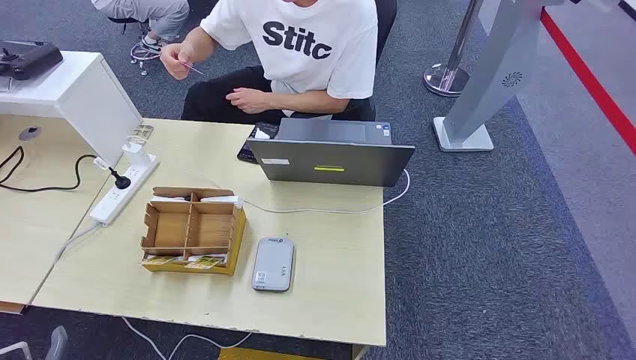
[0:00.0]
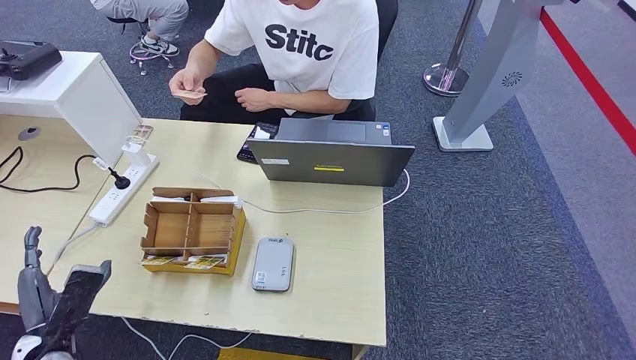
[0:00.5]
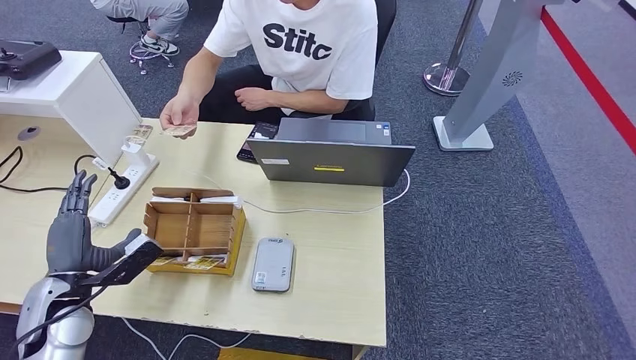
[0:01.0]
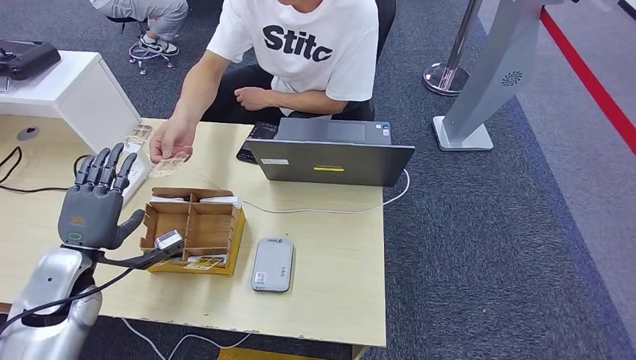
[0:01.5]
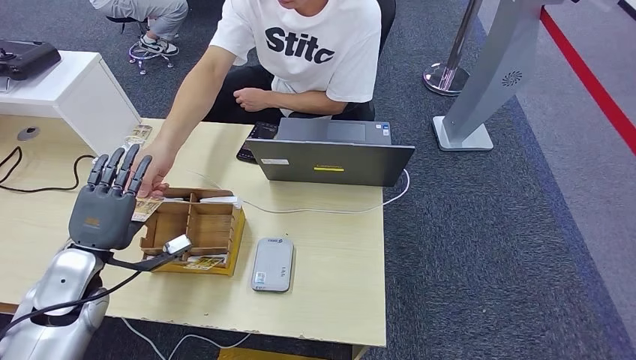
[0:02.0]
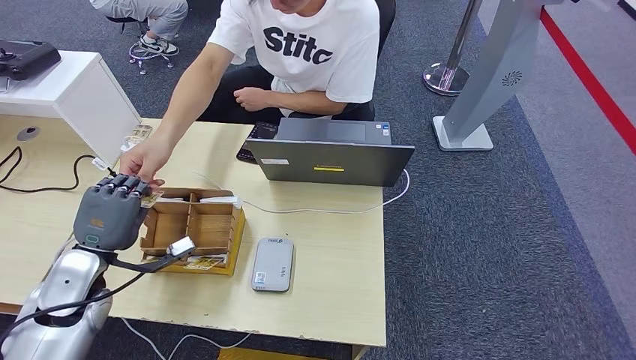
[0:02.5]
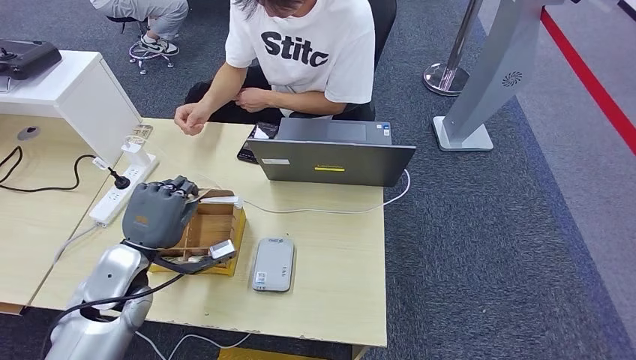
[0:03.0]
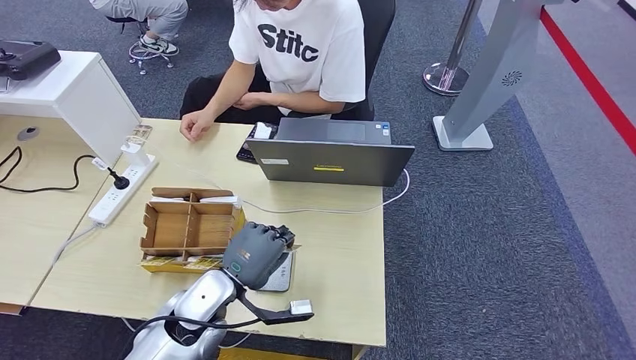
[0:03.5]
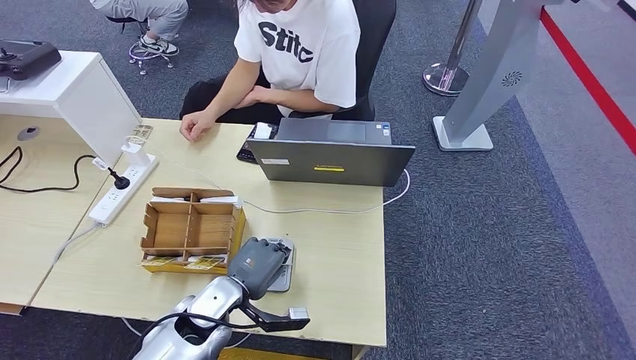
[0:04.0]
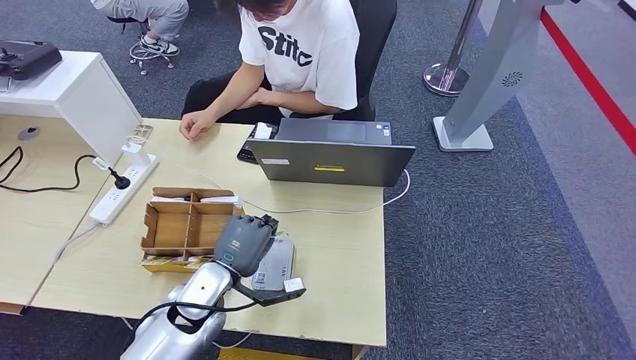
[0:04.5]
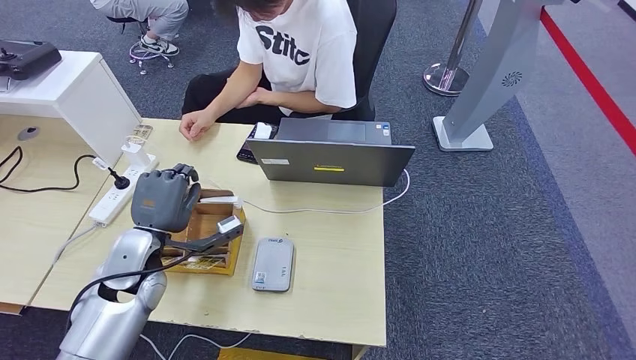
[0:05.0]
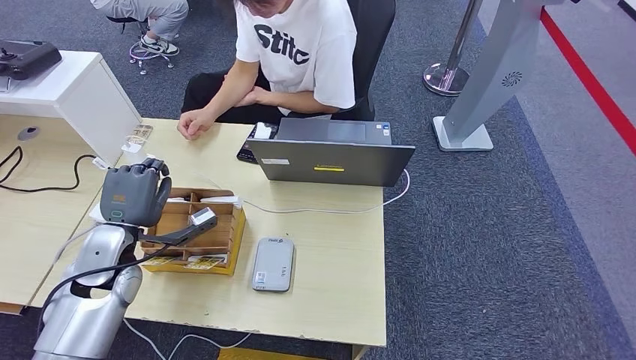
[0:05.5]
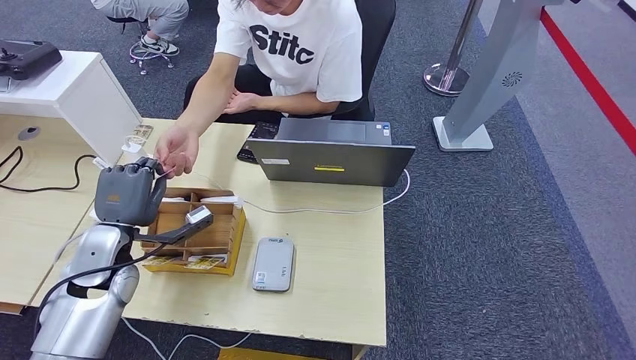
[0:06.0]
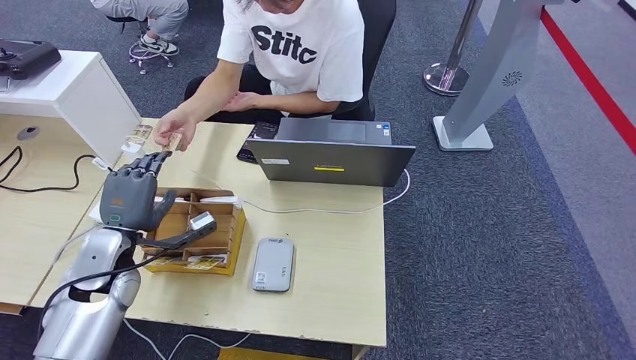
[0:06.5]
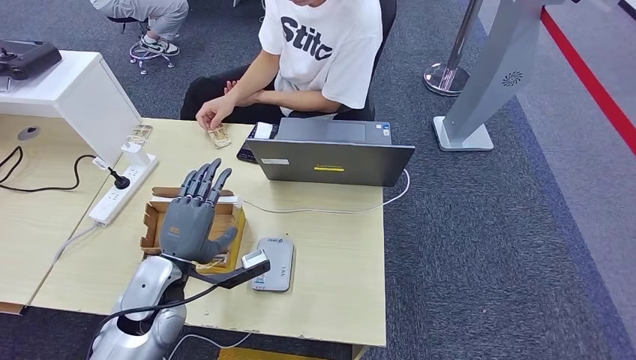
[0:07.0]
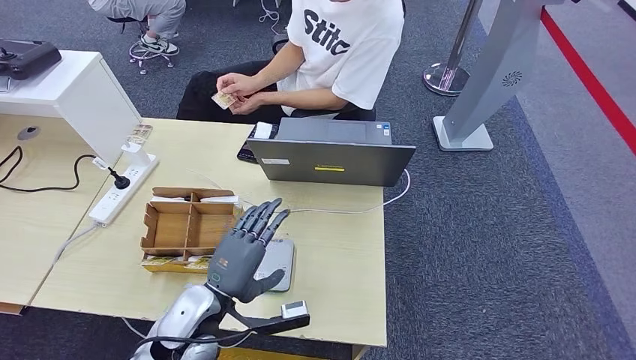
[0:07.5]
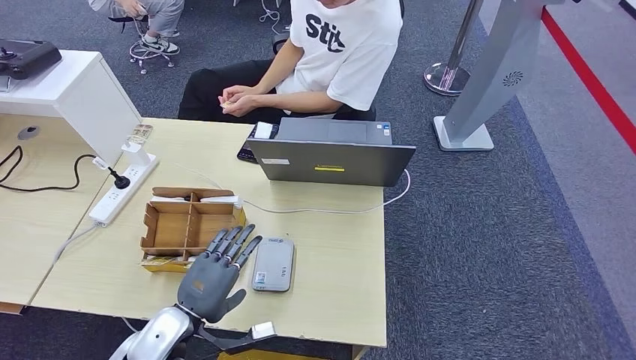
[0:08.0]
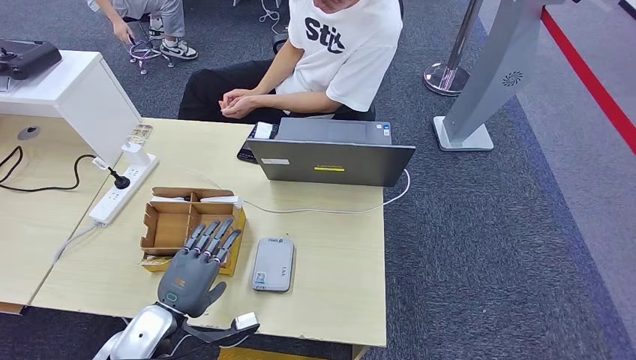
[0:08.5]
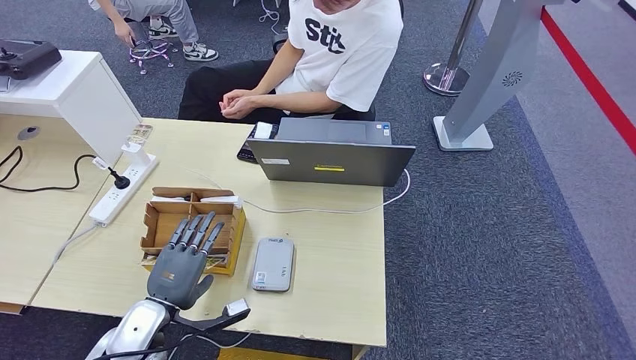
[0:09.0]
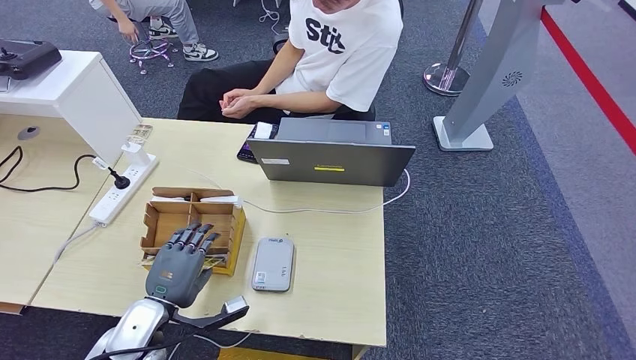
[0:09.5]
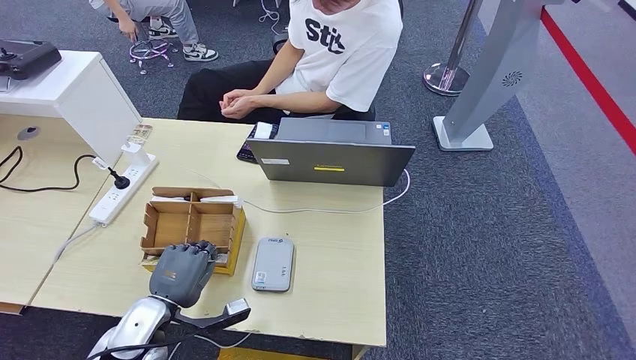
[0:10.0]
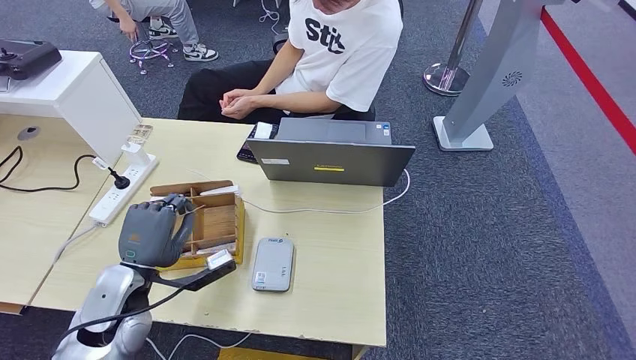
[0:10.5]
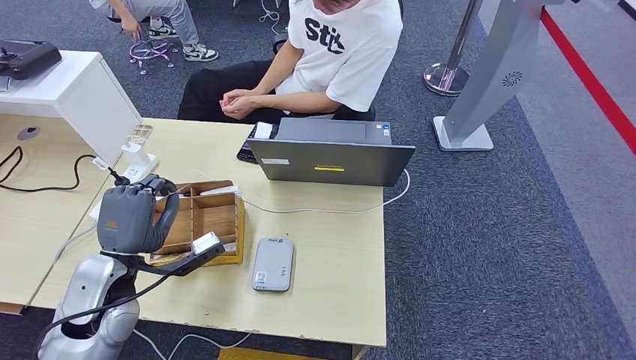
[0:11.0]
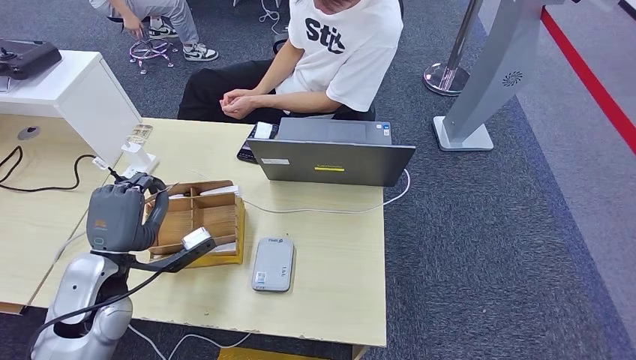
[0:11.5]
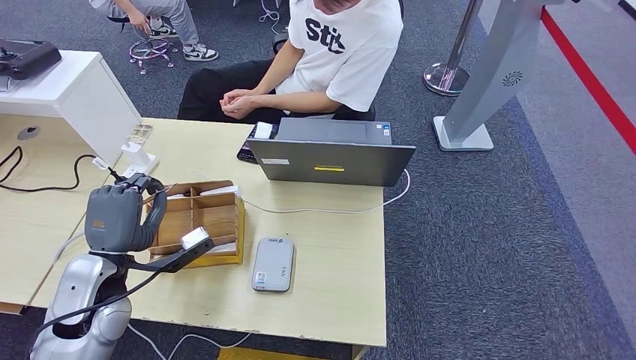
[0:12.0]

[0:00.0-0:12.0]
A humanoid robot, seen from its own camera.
Step, 0:00.0 to 0:02.5: Take the ID card from the person's hand.
Step, 0:03.0 to 0:03.5: Place the ID card on the card reader.
Step, 0:04.0 to 0:06.0: Hand the ID card to the person.
Step, 0:06.5 to 0:10.5: Pick up the room key from the key card box.
0:04.0 to 0:06.0: The left hand goes roughly 20 cm to the left and upward.
0:08.0 to 0:10.0: The left hand shifts by some 5 cm.
0:10.0 to 0:12.0: The left hand shifts roughly 10 cm upward.

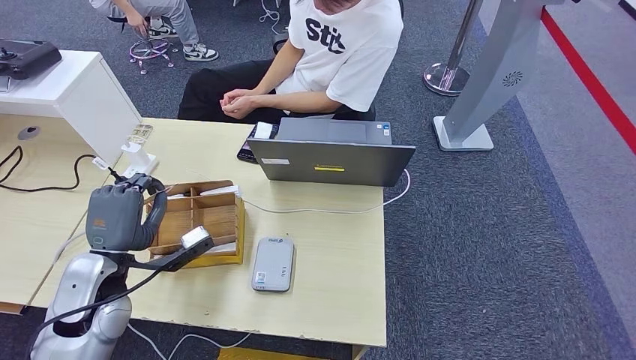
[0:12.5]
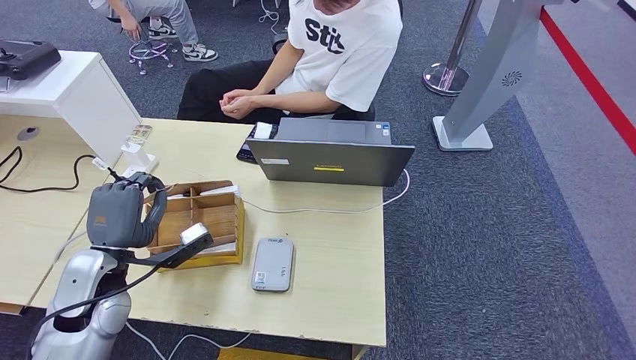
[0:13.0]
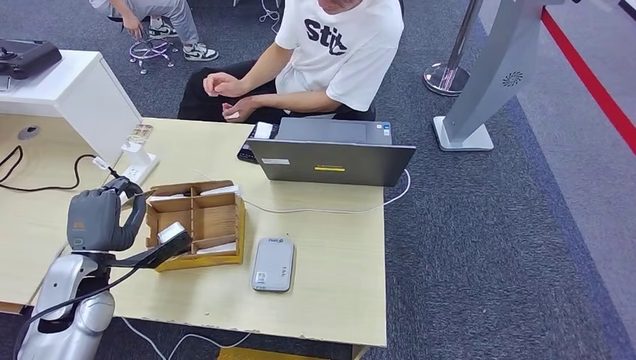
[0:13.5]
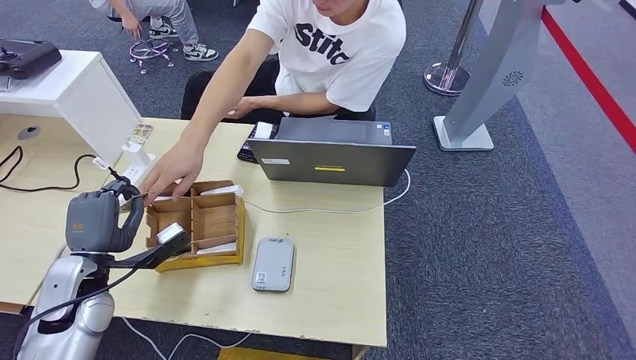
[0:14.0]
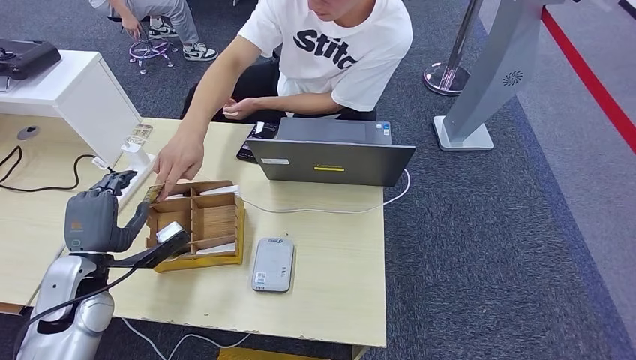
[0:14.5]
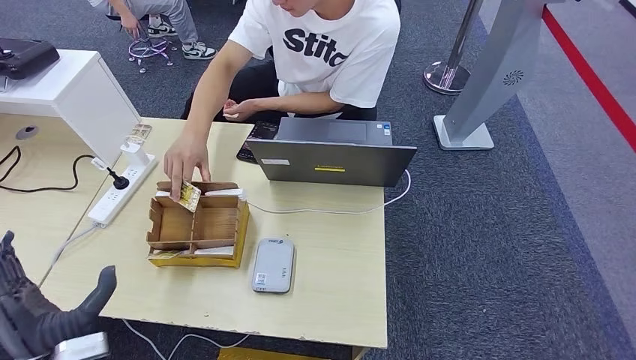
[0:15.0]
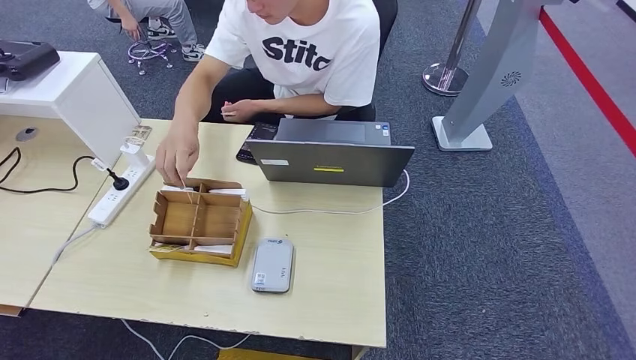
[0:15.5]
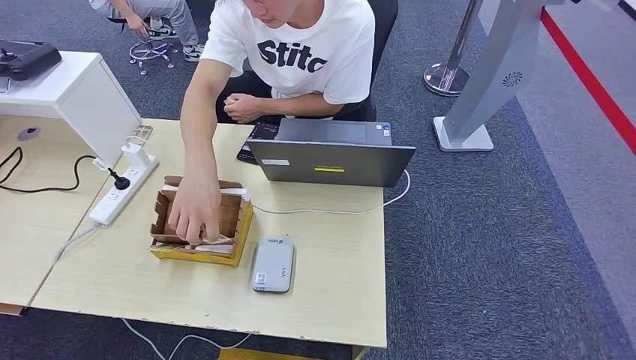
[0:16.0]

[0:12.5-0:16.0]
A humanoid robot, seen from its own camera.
Step, 0:12.5 to 0:16.0: Hand the room key to the person.
0:12.5 to 0:14.5: The left hand moves roughly 5 cm.
0:14.5 to 0:16.0: The left hand travels downward and backward by some 40 cm.
